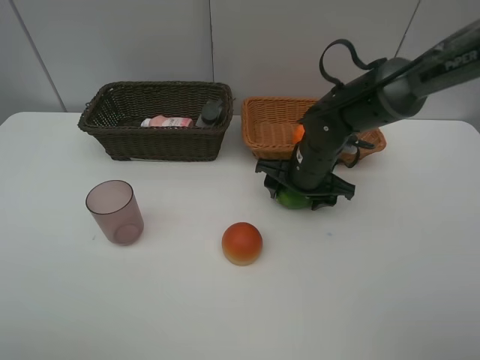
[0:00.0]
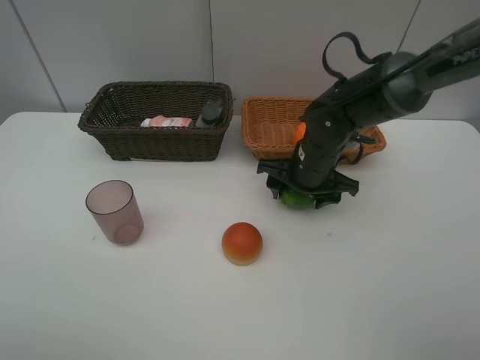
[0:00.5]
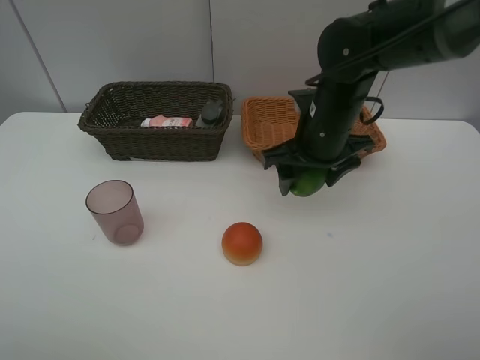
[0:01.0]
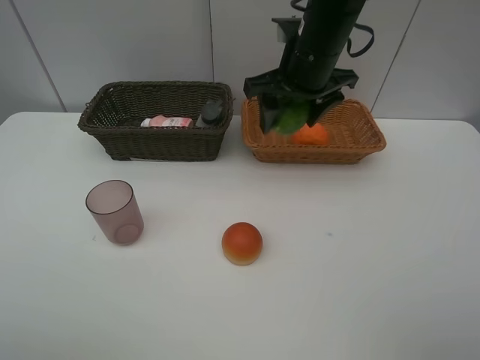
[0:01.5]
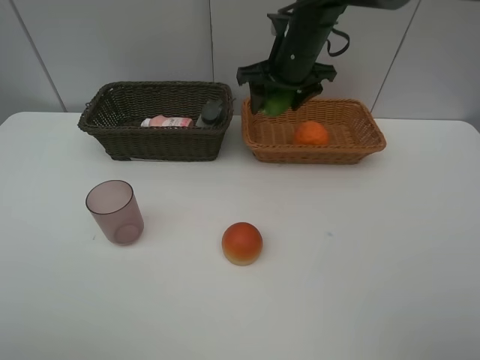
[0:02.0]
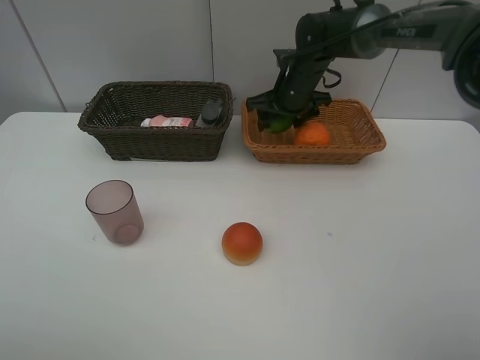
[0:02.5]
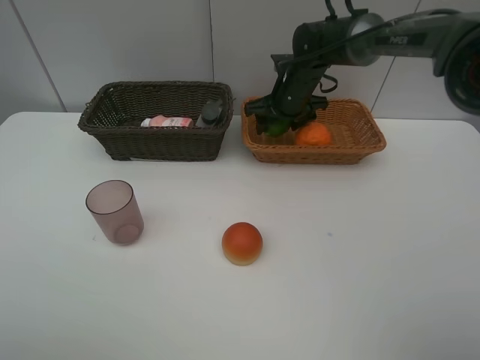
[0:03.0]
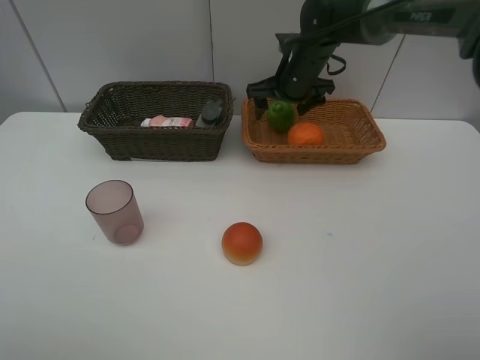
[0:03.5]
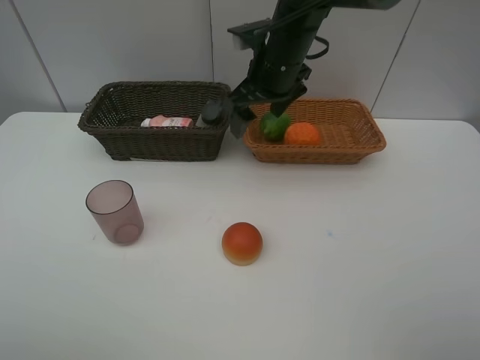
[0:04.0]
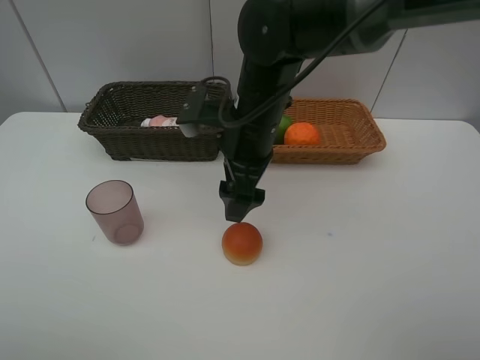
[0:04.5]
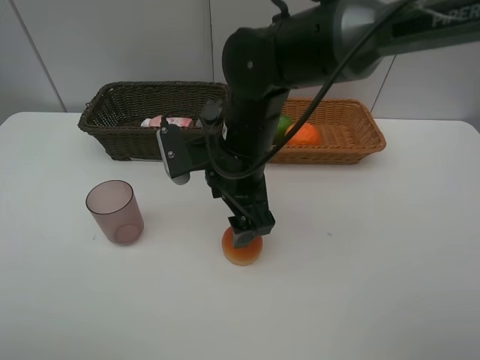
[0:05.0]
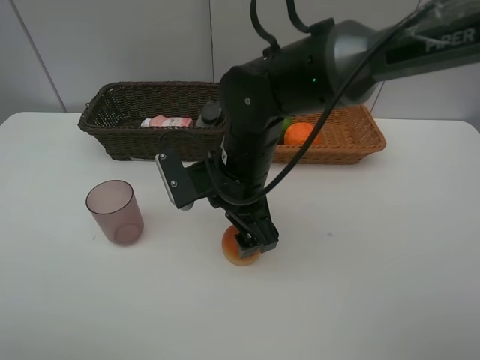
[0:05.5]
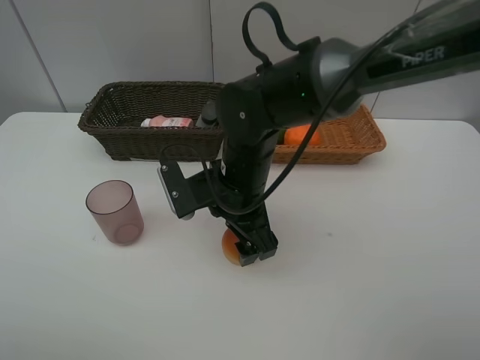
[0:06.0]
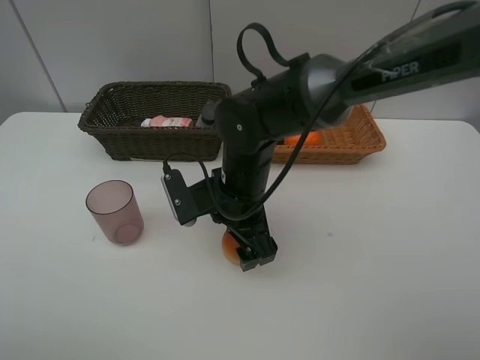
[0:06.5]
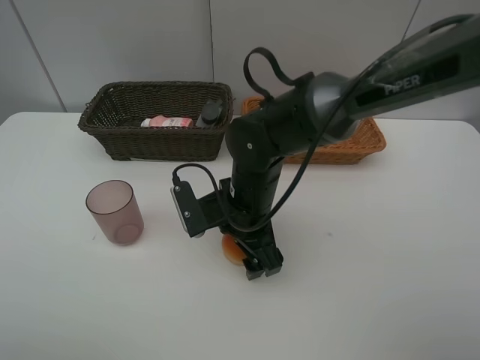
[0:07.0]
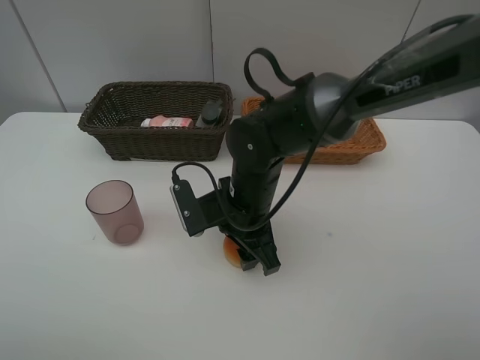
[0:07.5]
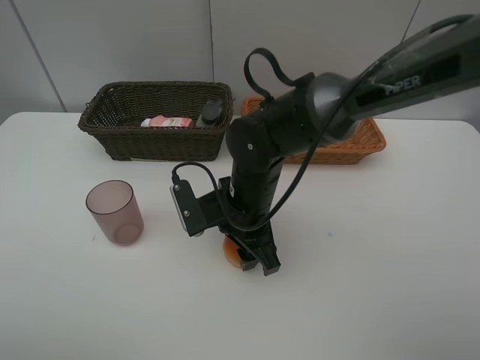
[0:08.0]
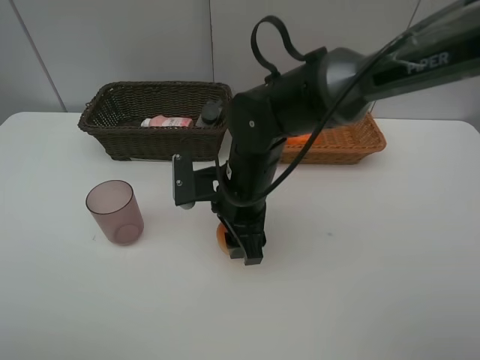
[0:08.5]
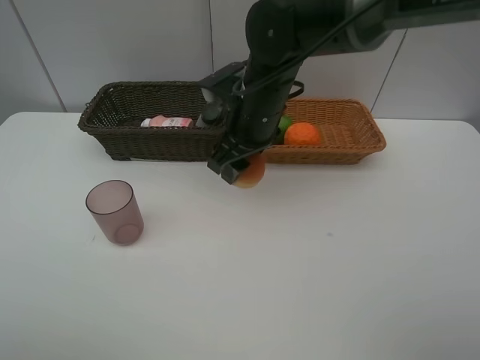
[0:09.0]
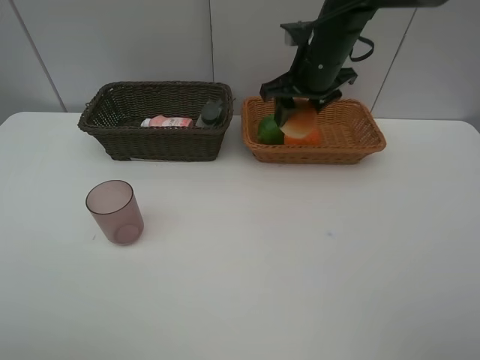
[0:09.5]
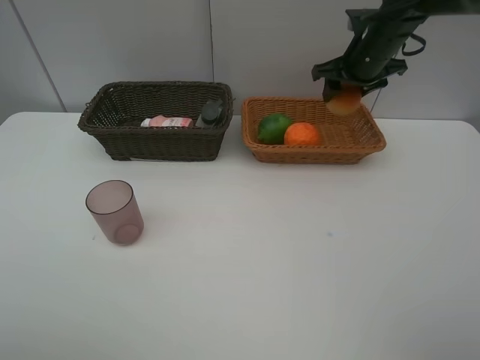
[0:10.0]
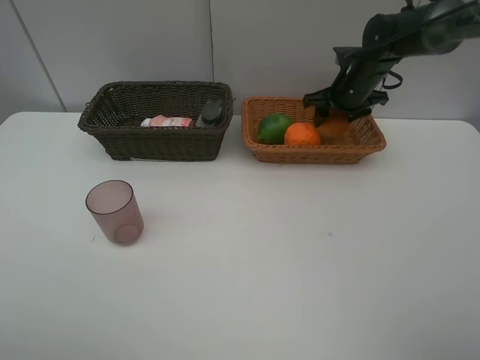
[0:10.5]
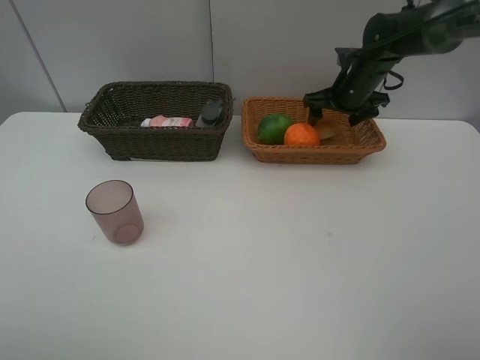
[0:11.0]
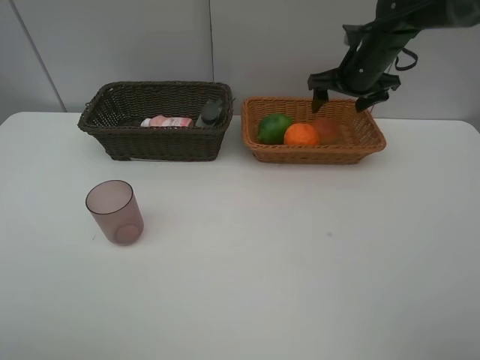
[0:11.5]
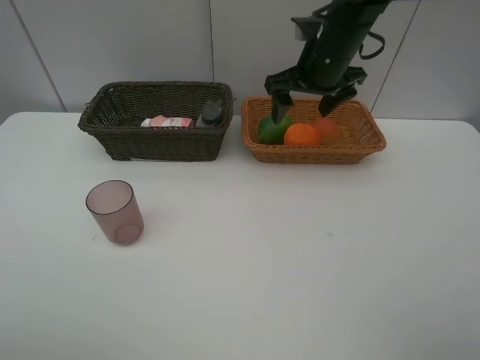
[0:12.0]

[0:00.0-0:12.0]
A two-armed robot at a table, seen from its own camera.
Task of the whole recording: place multiple objects separately in different baskets.
0:00.0 to 0:02.0: The right gripper shifts some 15 cm upward and forward.
0:02.0 to 0:04.0: The right gripper travels backward by roughly 5 cm.
0:04.0 to 0:06.0: The right gripper shifts about 15 cm backward and downward.
0:06.0 to 0:08.0: The right gripper closes.
0:08.0 to 0:10.0: The right gripper goes some 30 cm forward, to the right and upward.
0:10.0 to 0:12.0: The right gripper shifts roughly 10 cm to the left and backward, and opens.

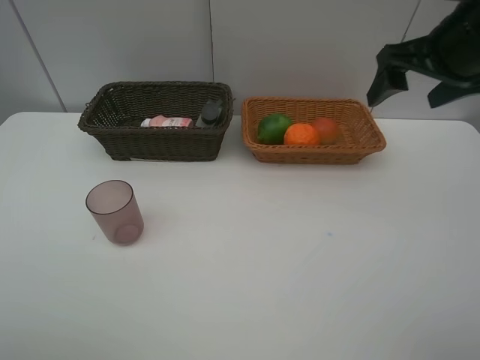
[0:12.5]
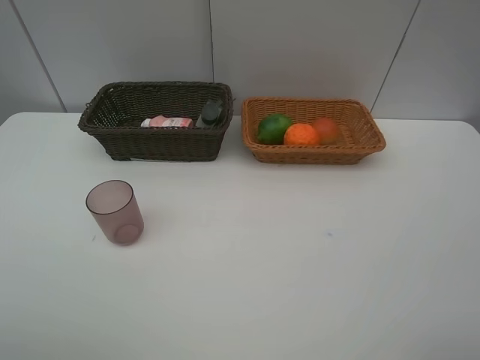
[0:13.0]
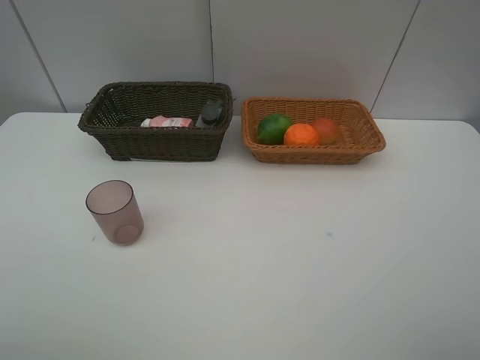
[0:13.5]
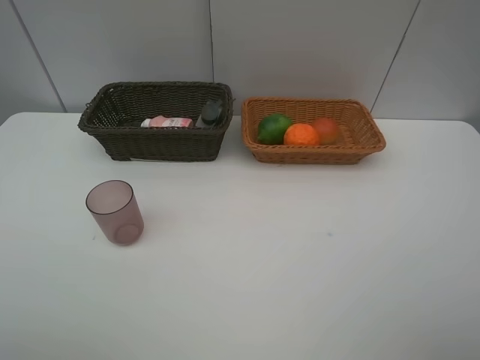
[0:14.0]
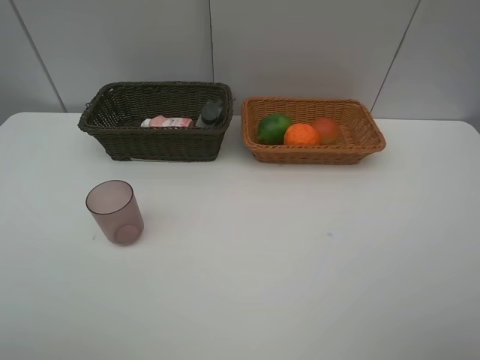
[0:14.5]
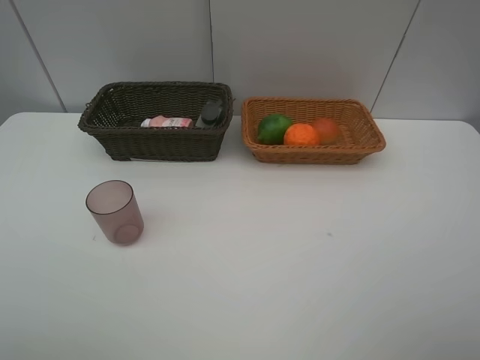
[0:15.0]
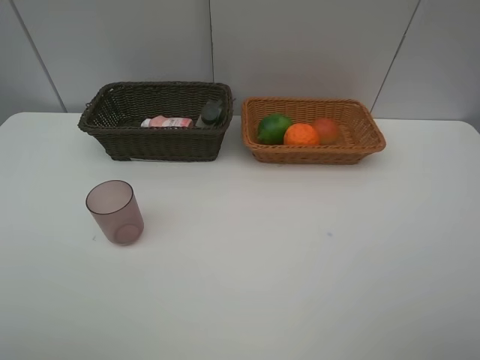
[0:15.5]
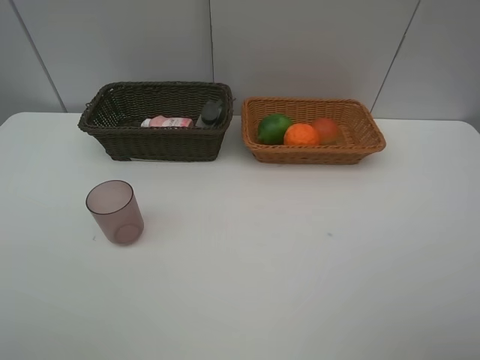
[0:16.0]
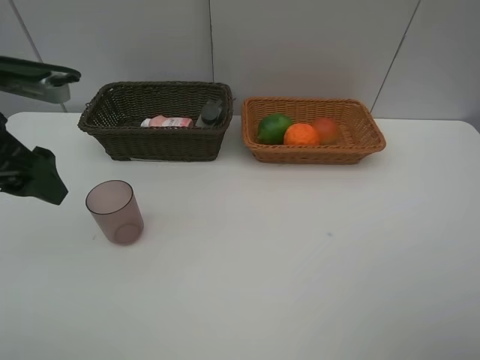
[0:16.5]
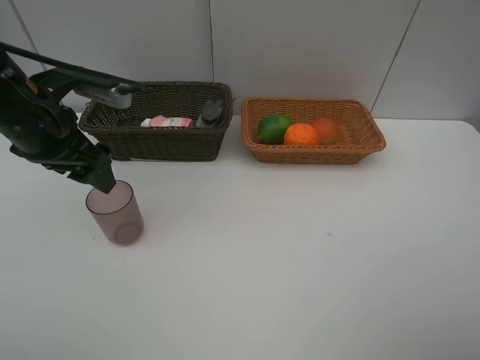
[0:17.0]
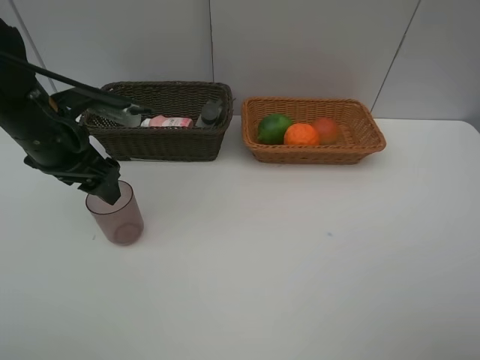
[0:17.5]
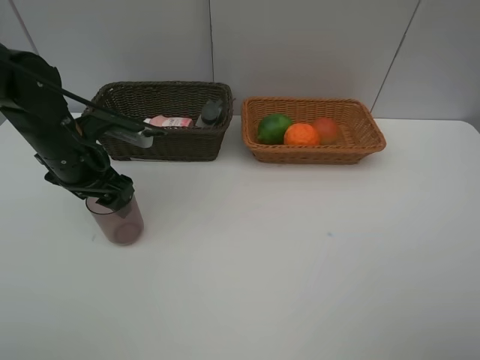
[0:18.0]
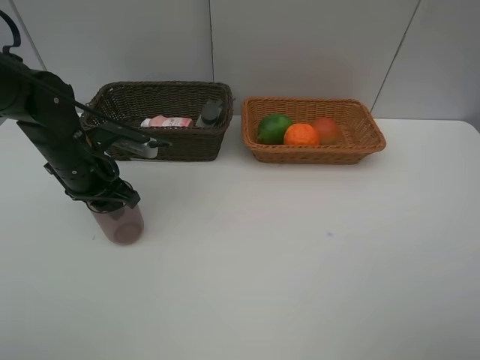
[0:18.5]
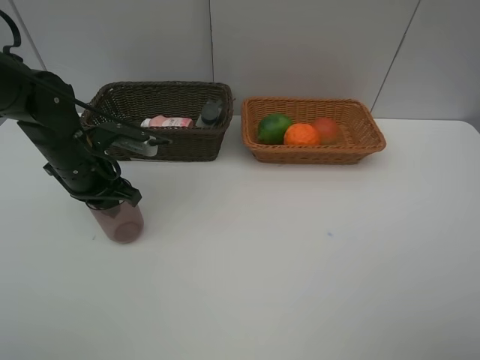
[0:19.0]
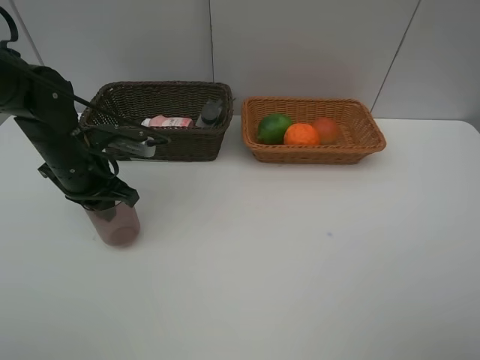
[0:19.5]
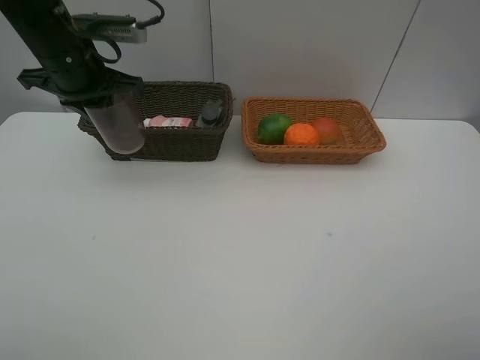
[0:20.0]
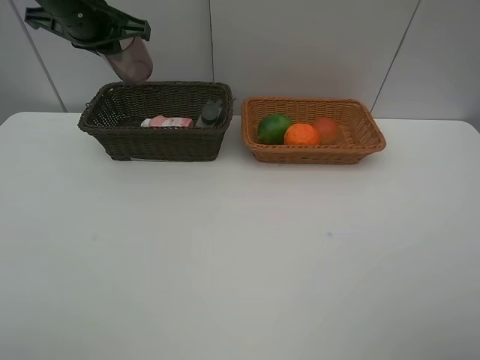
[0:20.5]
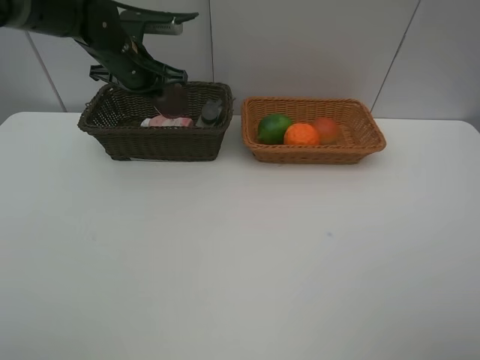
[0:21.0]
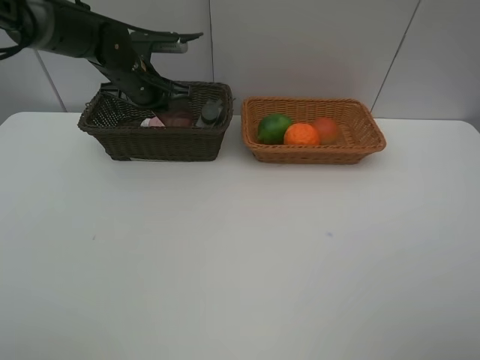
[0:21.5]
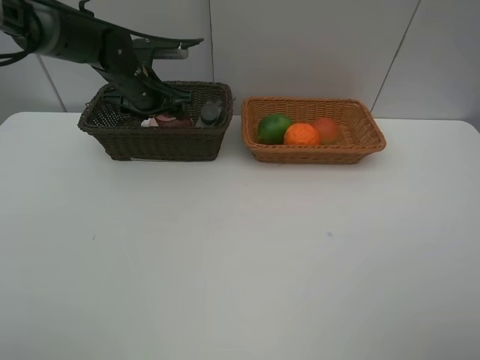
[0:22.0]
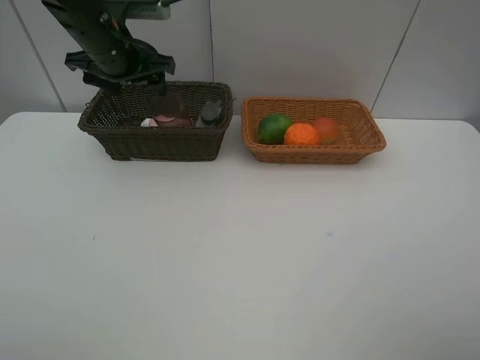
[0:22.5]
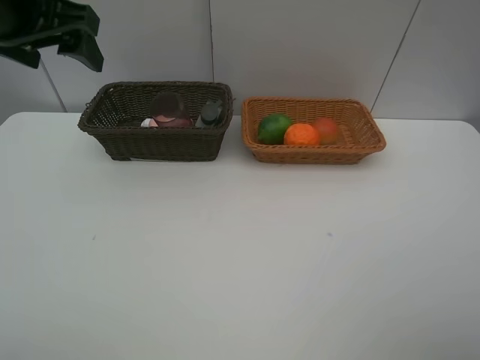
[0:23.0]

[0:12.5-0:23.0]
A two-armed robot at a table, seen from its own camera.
Task of the whole recording: place multiple objects separately in different baskets.
0:12.5 to 0:14.5: The right gripper goes about 30 cm backward.
0:14.5 to 0:16.5: The left gripper heads forward, covering roughly 25 cm.
0:16.5 to 0:19.0: The left gripper travels downward and forward by approximately 15 cm, and closes up.
0:19.0 to 0:21.0: The left gripper moves forward and upward, approximately 15 cm.
0:21.0 to 0:23.0: The left gripper shifts some 20 cm backward and upward, and opens its fingers.

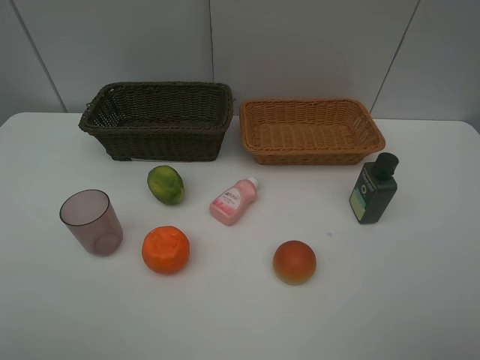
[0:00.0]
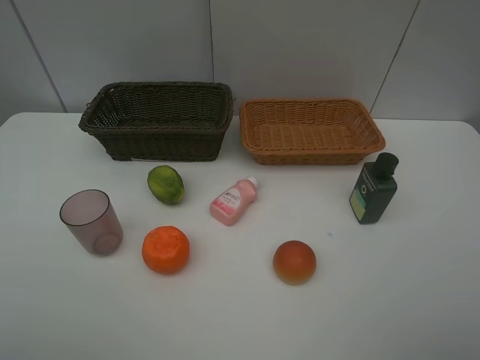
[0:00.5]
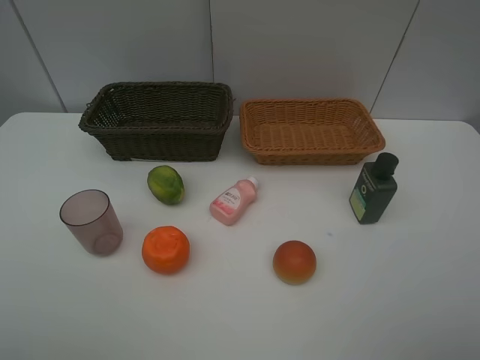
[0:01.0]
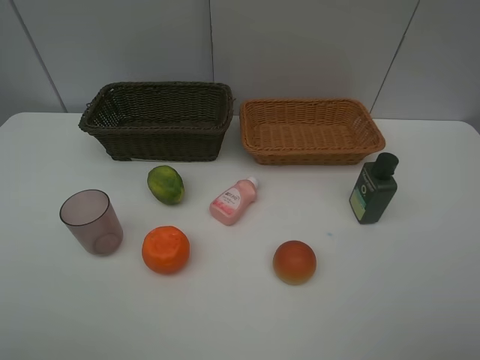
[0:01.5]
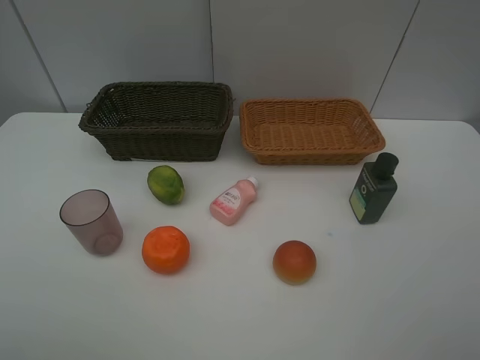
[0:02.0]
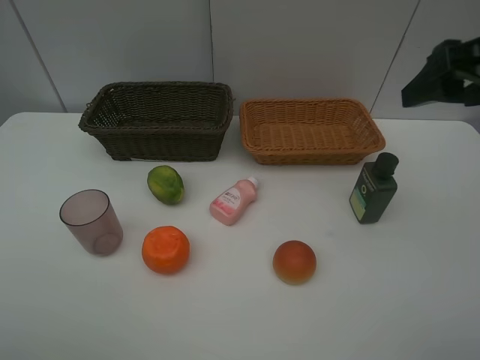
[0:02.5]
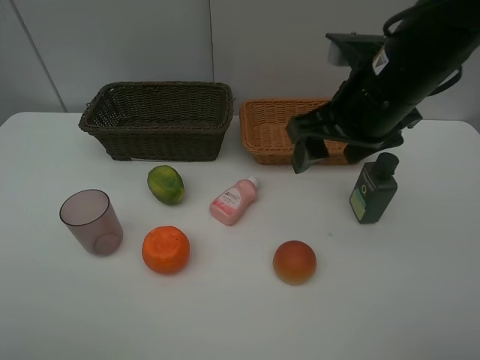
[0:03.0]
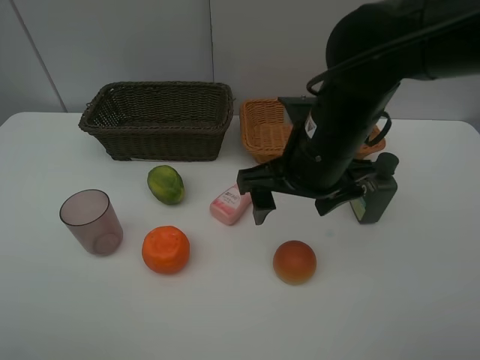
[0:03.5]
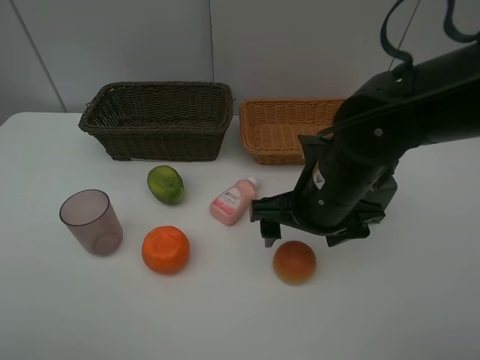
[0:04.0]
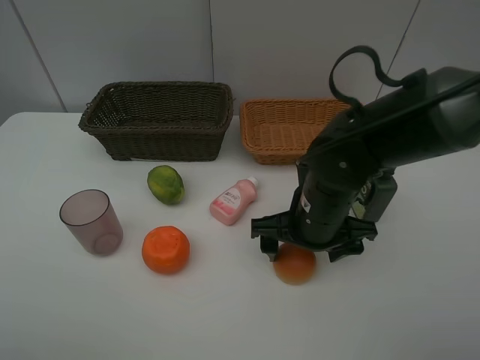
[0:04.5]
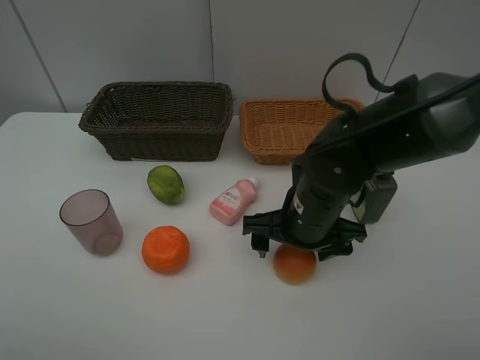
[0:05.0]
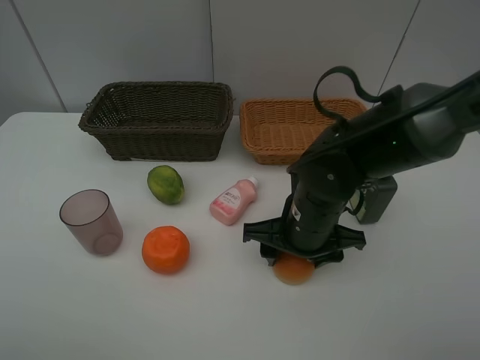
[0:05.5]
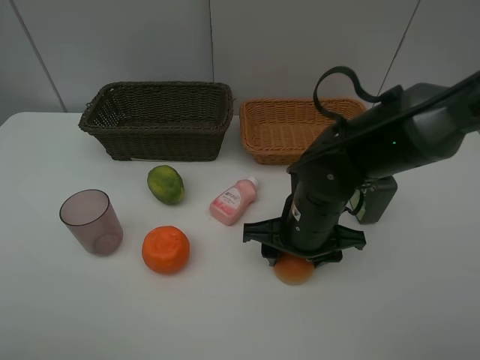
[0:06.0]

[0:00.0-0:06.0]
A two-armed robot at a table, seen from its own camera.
Task of the whole recording: place multiple objects separately in different baskets.
0:02.0 to 0:04.0: The right gripper goes roughly 30 cm to the left, downward and forward.
0:04.0 to 0:06.0: The right gripper shifts approximately 5 cm downward, and closes up.
